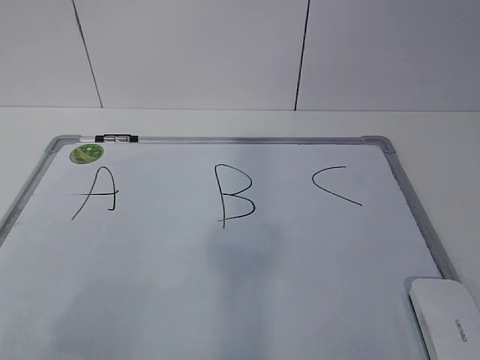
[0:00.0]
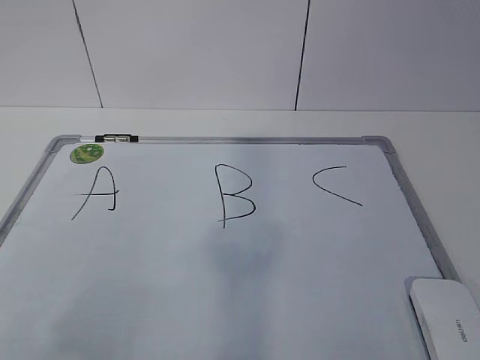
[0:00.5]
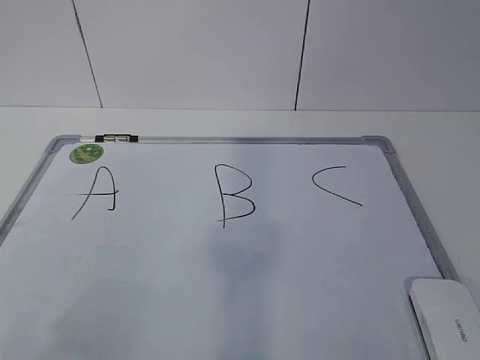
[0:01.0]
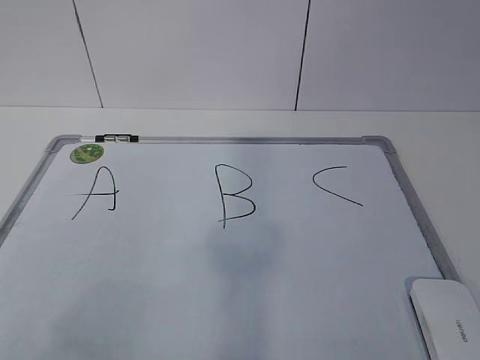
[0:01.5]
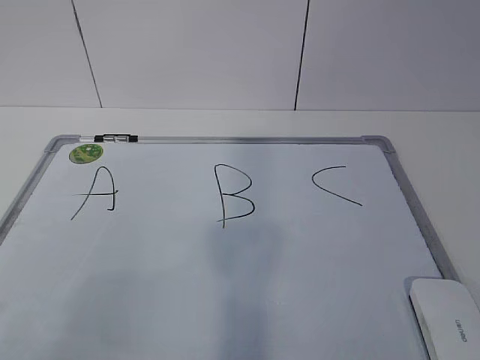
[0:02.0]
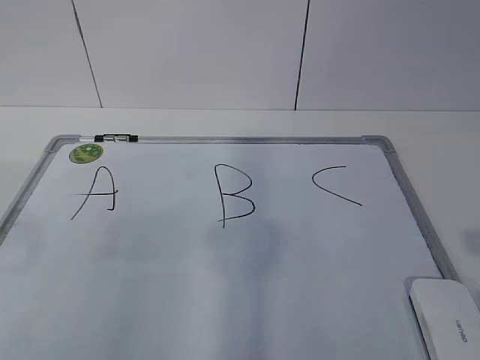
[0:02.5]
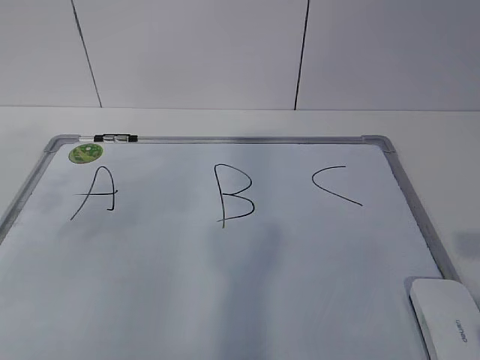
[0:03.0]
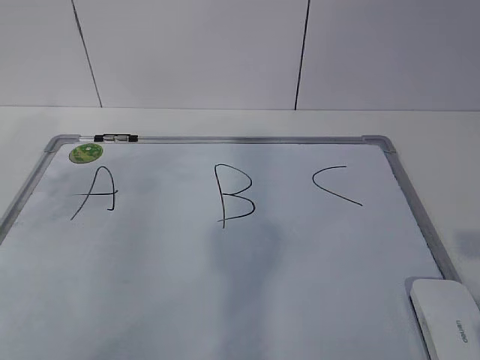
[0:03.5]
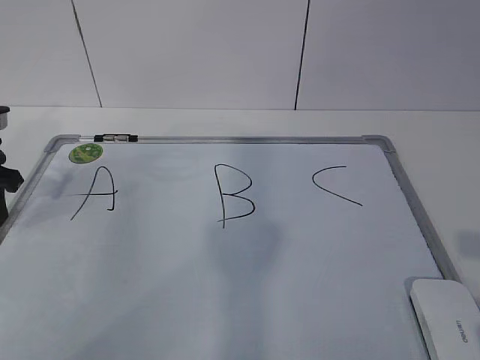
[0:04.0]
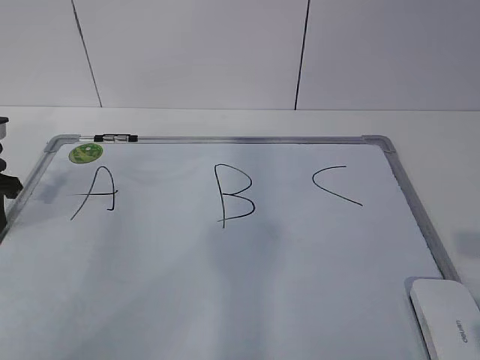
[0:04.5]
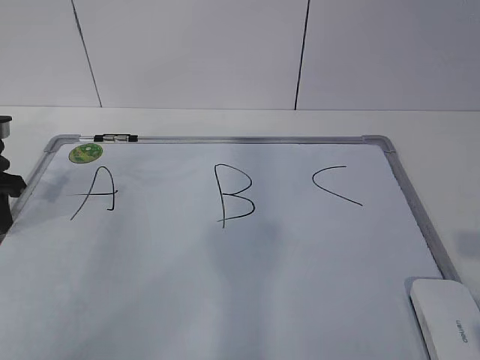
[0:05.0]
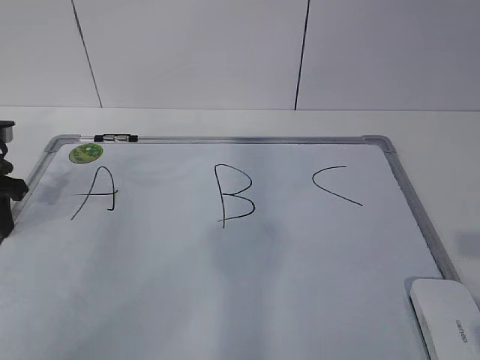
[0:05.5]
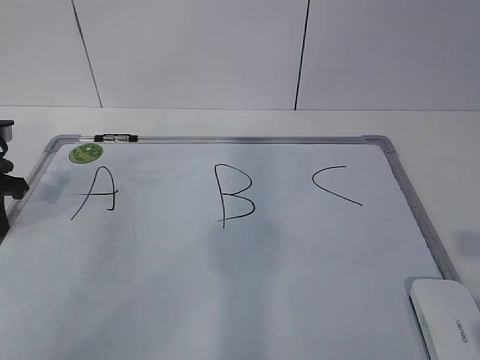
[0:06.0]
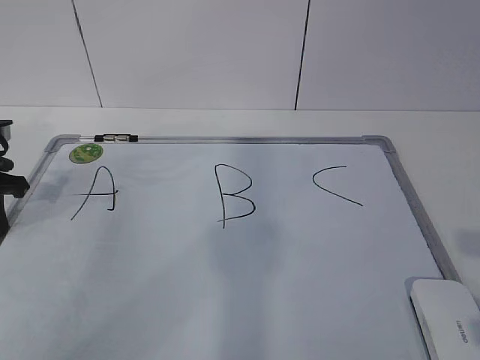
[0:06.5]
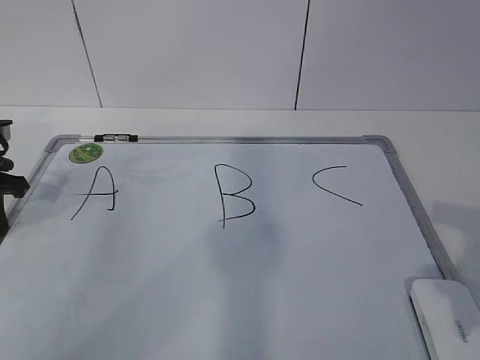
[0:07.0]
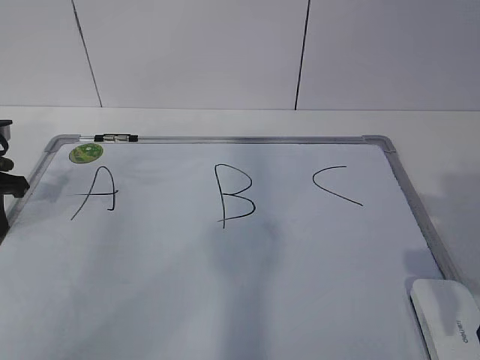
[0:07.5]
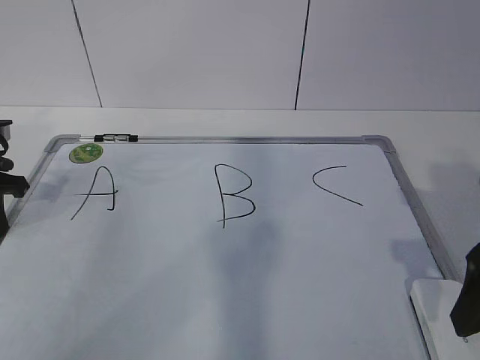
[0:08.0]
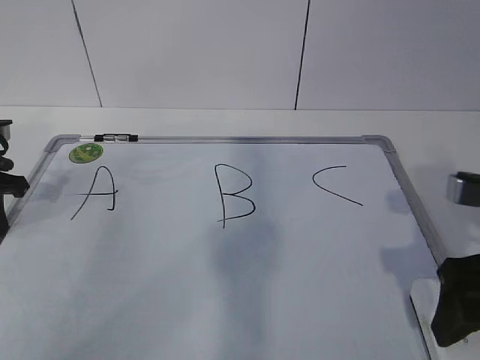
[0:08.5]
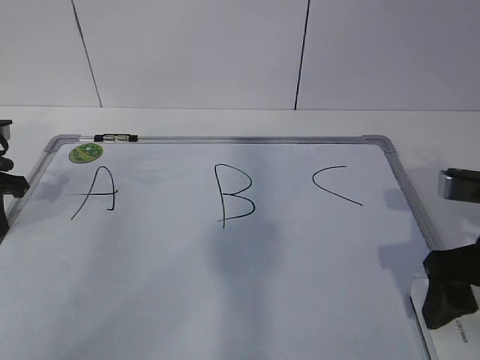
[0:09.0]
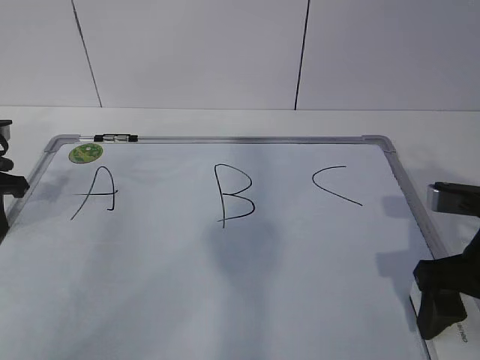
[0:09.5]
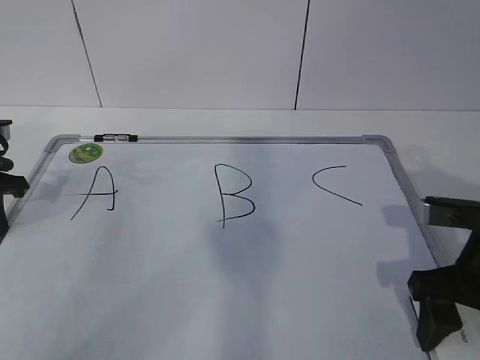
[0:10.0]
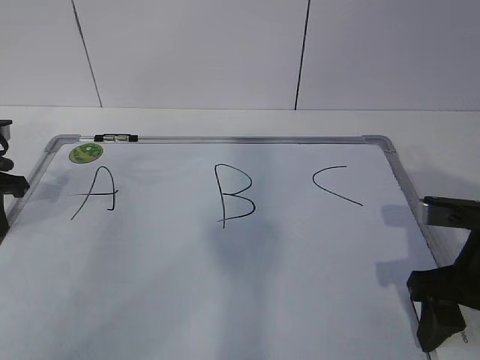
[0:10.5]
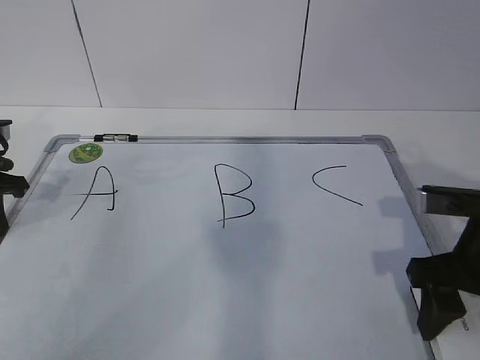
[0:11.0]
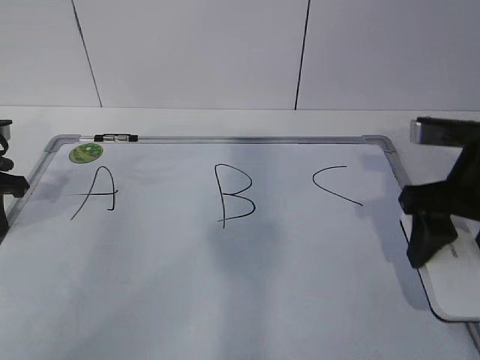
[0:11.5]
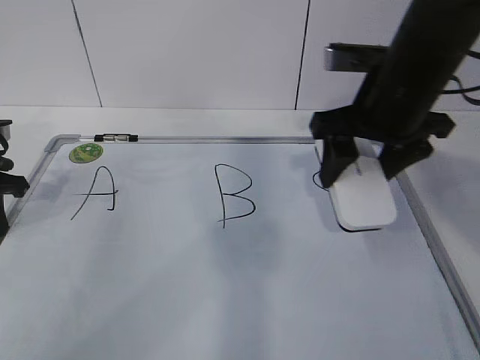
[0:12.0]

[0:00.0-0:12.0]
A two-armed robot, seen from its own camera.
Task of the whole recording: pick up the eraser on the blackboard and erase the letter "B".
Step, 0:05.5 to 0:08.0: Grab the eraser with your right hand.
0:02.0 to 0:04.0: The left gripper shifts about 30 cm forward.
0:04.0 to 0:06.0: The left gripper closes its fingers.
0:06.0 to 0:08.0: The right gripper goes about 15 cm forward, and opens its fingers.
0:08.0 to 0:10.0: The right gripper goes some 5 cm downward.
0:10.0 to 0:12.0: The right gripper moves forward, upward and to the left, about 15 cm, and closes.

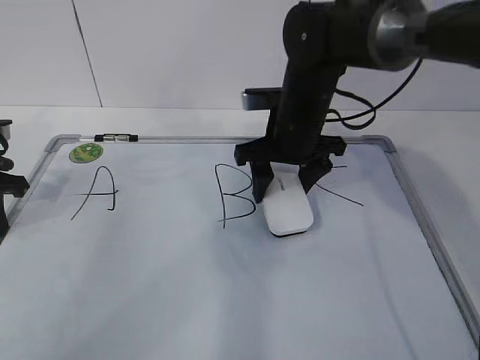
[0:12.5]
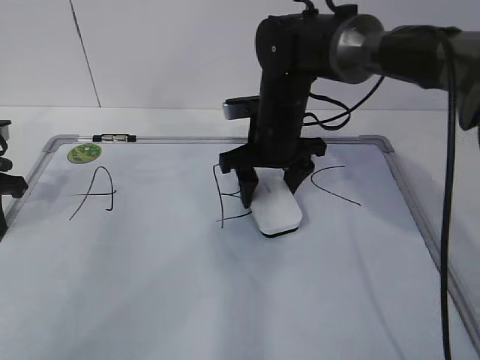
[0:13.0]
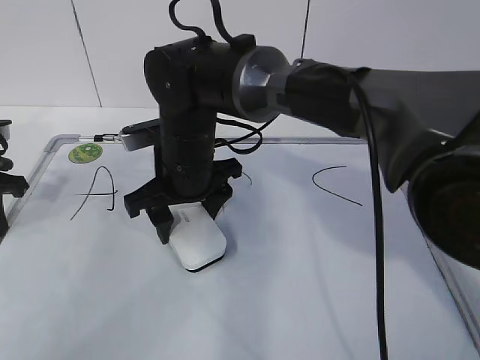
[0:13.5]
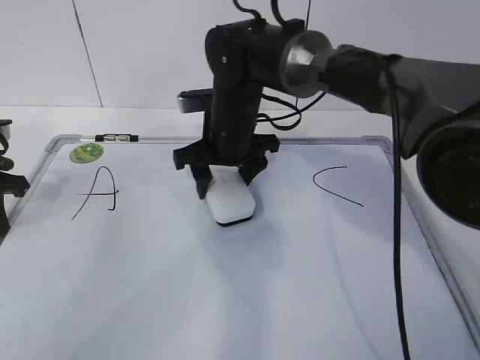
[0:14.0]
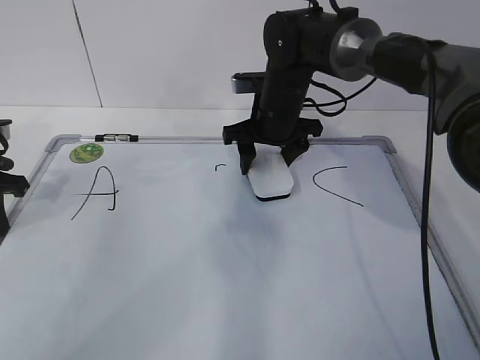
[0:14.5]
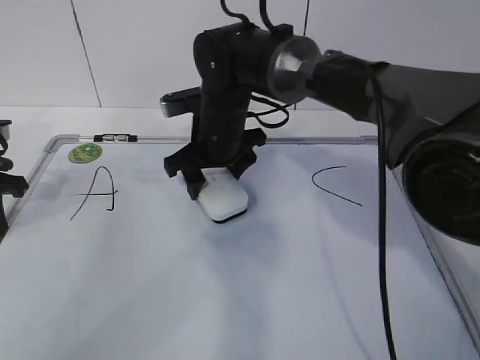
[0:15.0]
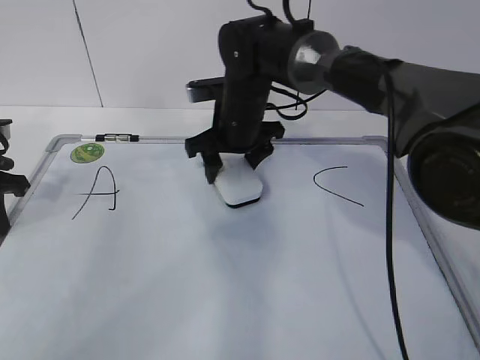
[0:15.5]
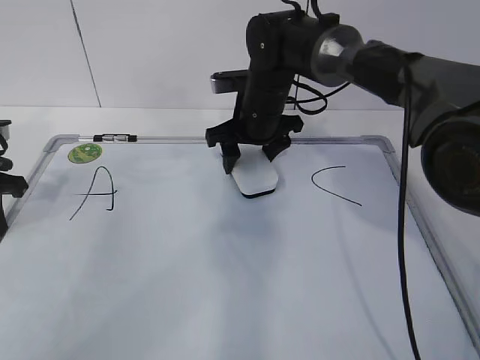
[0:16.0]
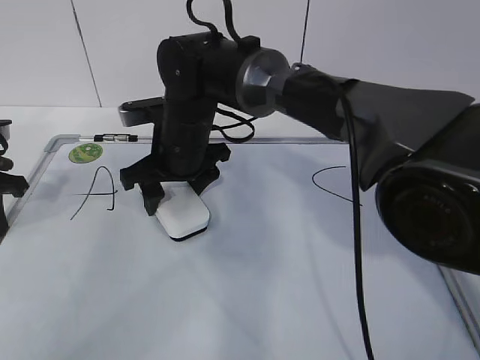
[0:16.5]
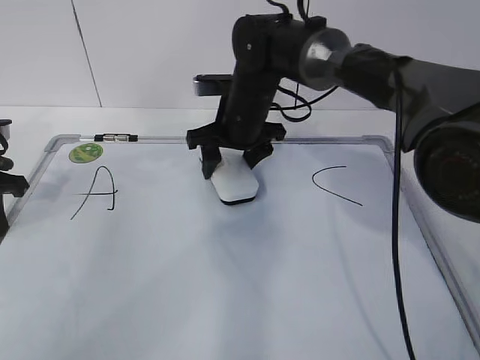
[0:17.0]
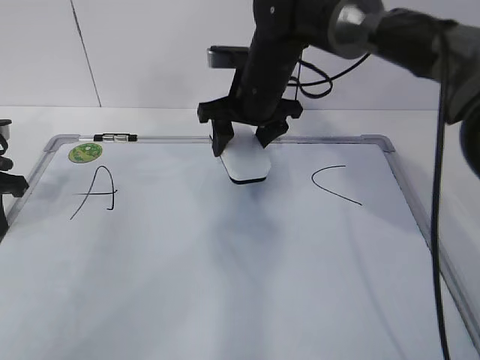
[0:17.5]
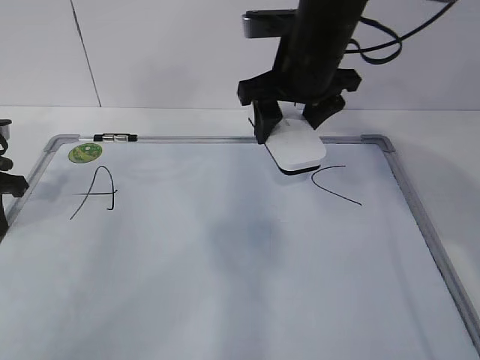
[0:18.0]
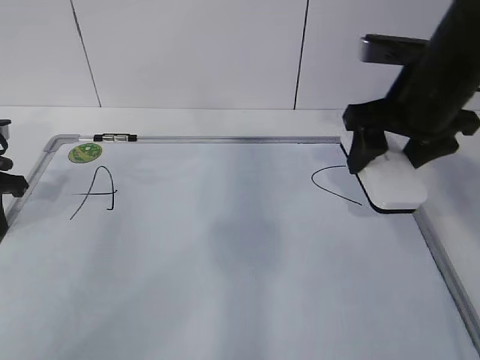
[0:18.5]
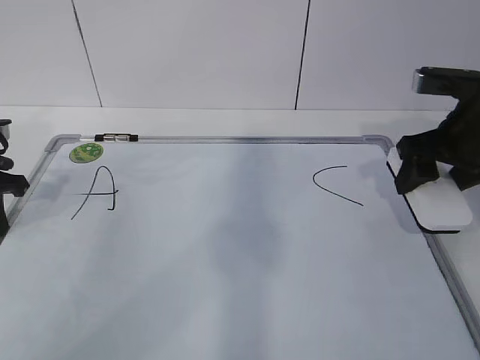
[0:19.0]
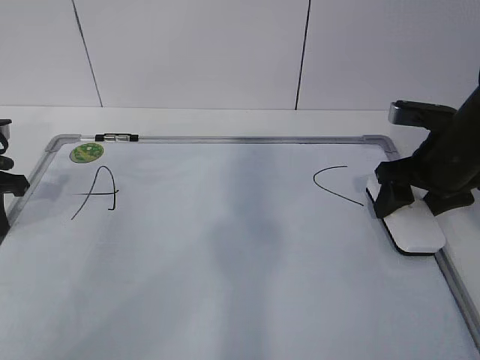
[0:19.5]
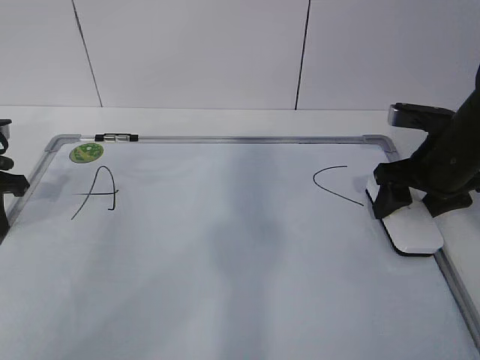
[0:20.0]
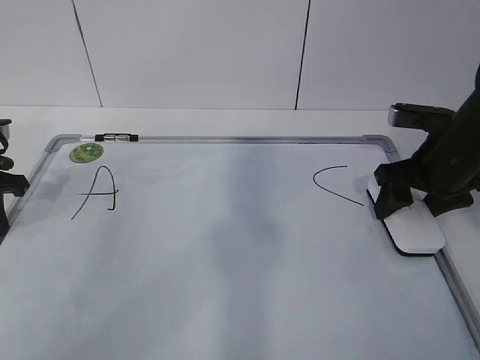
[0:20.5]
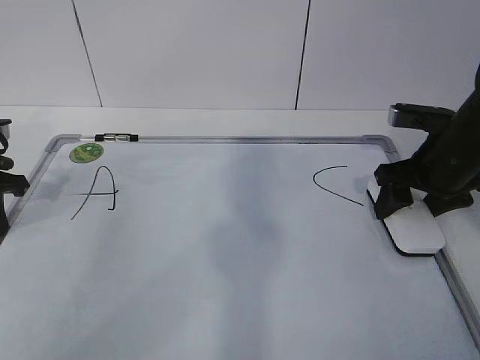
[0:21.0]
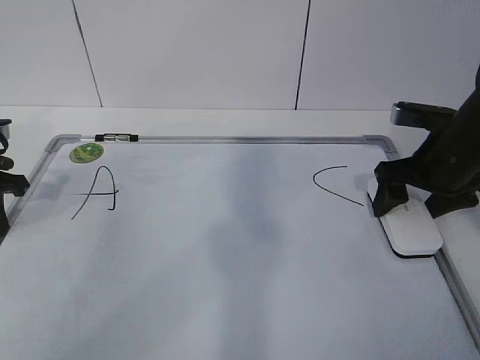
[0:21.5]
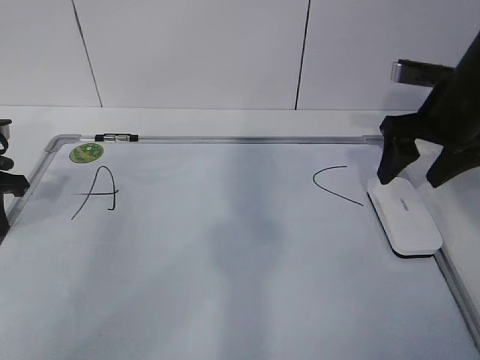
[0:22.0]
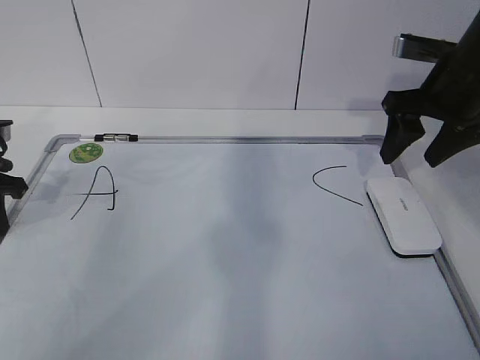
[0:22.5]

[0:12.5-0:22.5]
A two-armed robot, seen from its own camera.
Task of the whole recording: pick up the eraser on the blackboard and erase the letter "B".
Step, 0:14.5 to 0:17.5: Put down the eraser with your right hand.
0:12.5 to 0:14.5: The right gripper is displaced forward by some 5 cm, and reaches roughly 15 cm to the left, then returns.
0:14.5 to 0:16.5: The right gripper swings left and right, approximately 10 cm each way, with 2 reversals.
0:16.5 to 0:18.5: The right gripper shifts some 25 cm to the right.
0:18.5 to 0:20.5: The right gripper goes approximately 10 cm downward and to the right.
0:20.5 to 0:22.5: The right gripper shifts about 10 cm upward, and opens, then closes once more.

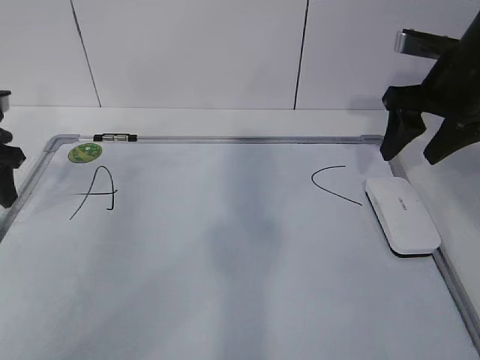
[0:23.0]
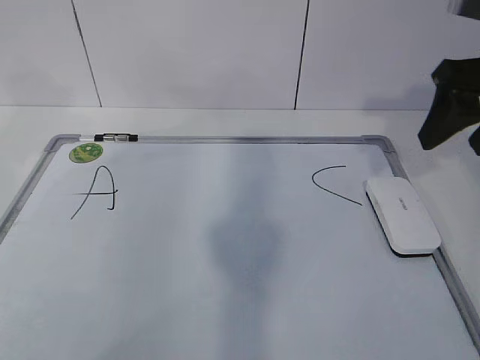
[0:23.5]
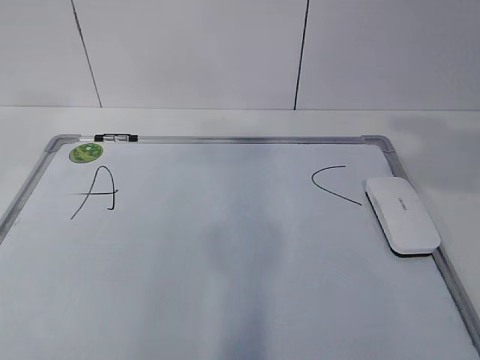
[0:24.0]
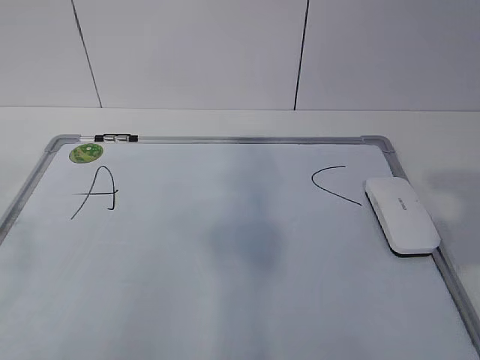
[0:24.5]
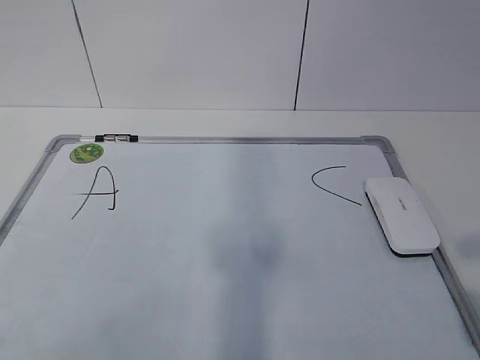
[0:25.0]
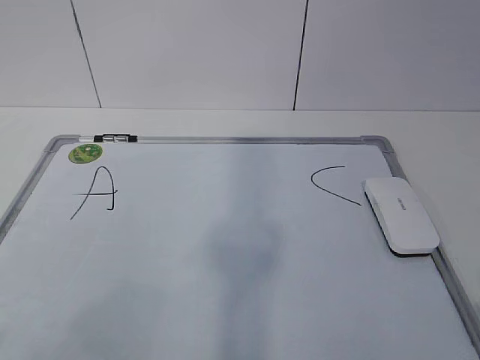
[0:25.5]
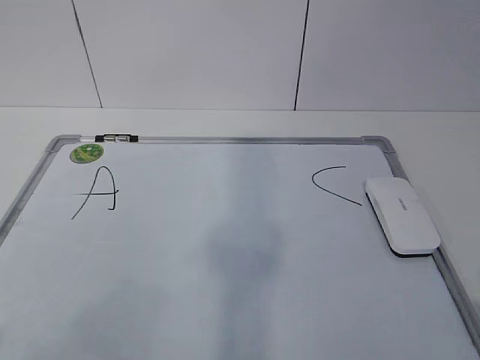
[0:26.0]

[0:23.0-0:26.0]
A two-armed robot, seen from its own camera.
Task of the whole recording: pick up the eraser on the blackboard and erase the letter "B".
0:23.0 to 0:24.5: The left gripper shifts about 35 cm backward and upward, and closes, while the right gripper moves backward, roughly 30 cm.
